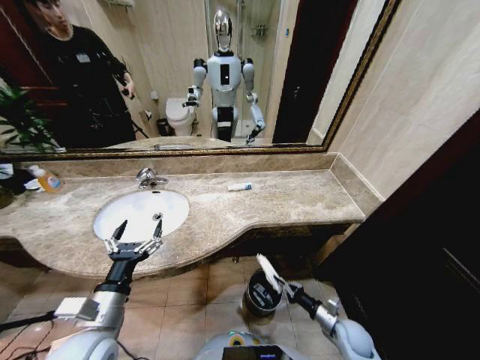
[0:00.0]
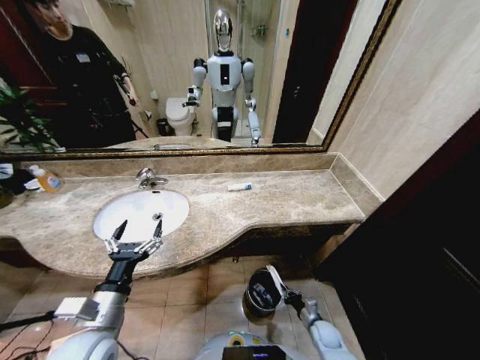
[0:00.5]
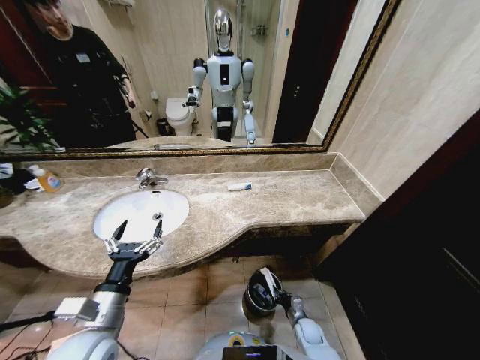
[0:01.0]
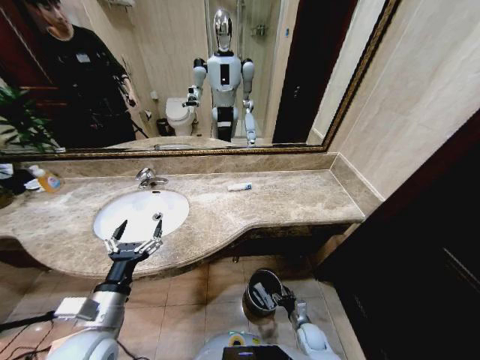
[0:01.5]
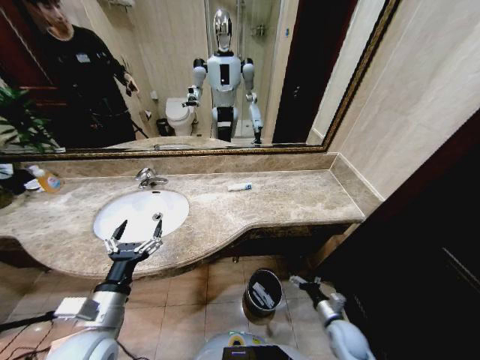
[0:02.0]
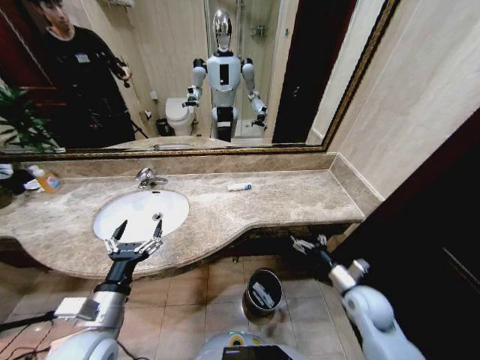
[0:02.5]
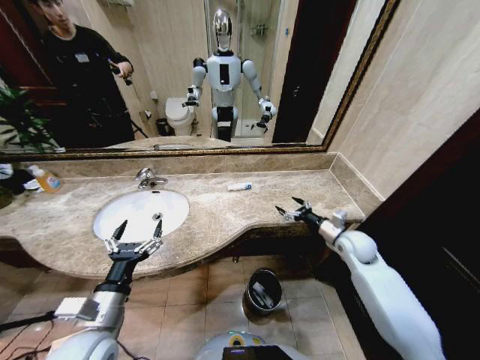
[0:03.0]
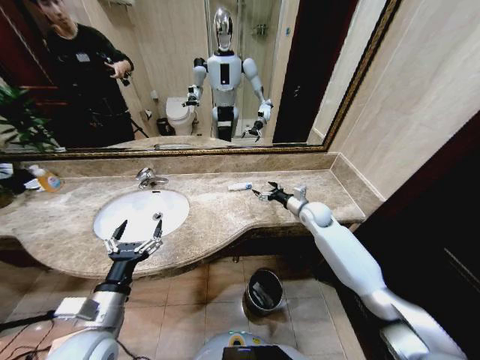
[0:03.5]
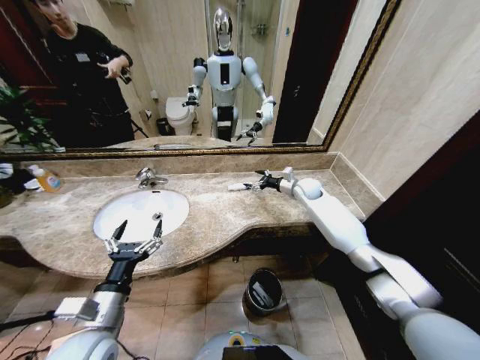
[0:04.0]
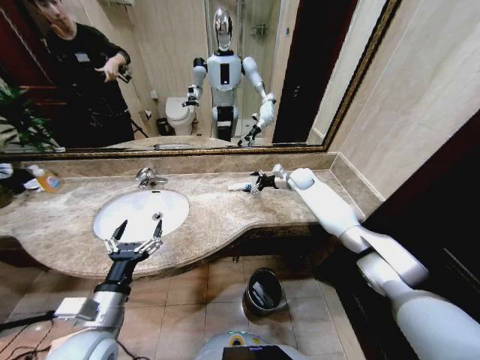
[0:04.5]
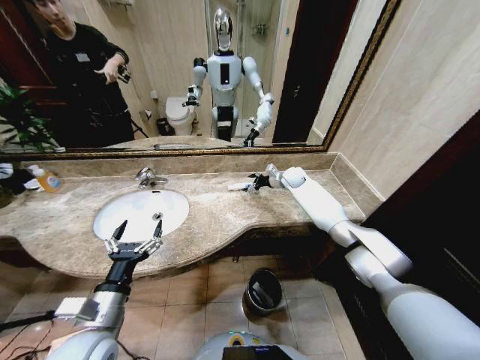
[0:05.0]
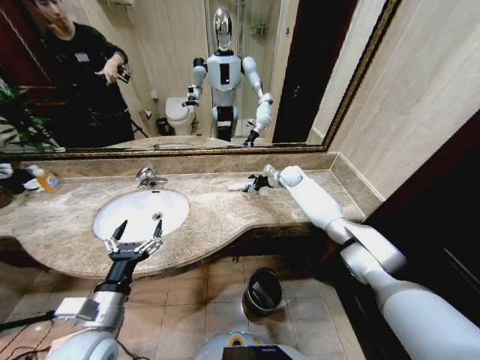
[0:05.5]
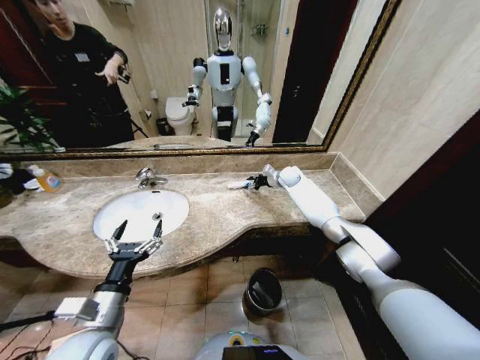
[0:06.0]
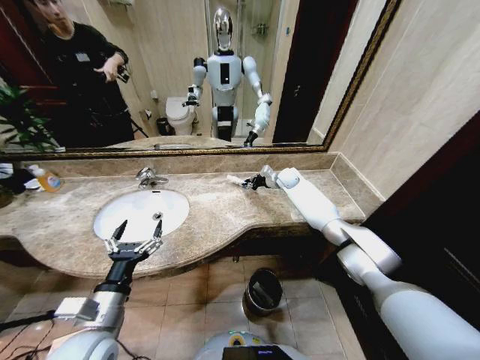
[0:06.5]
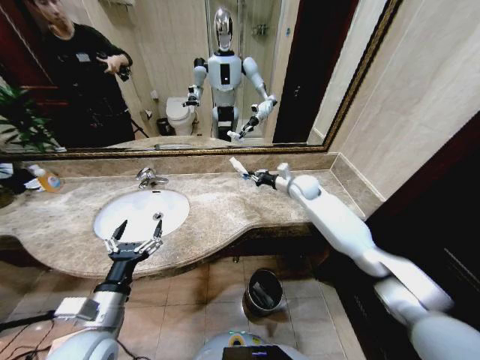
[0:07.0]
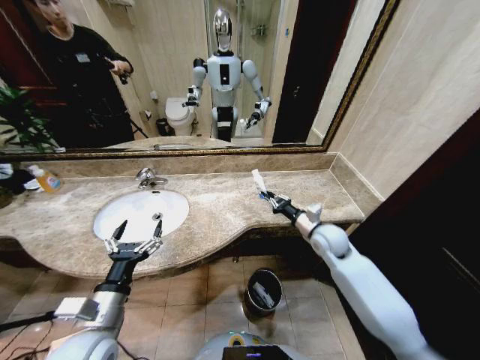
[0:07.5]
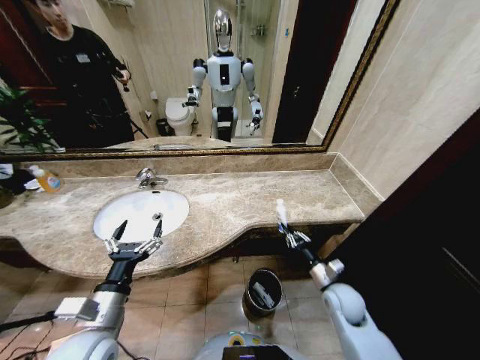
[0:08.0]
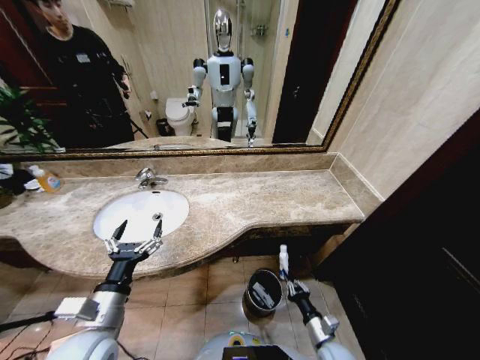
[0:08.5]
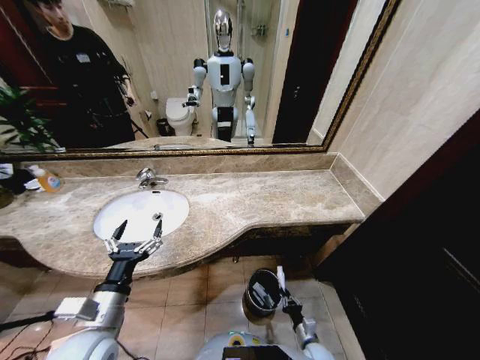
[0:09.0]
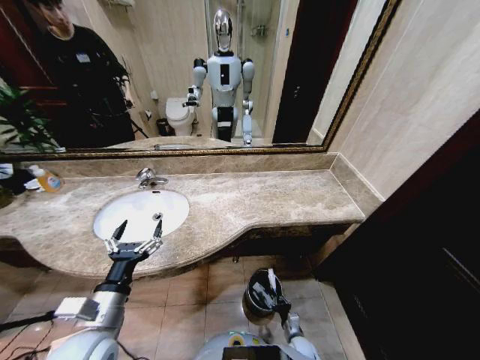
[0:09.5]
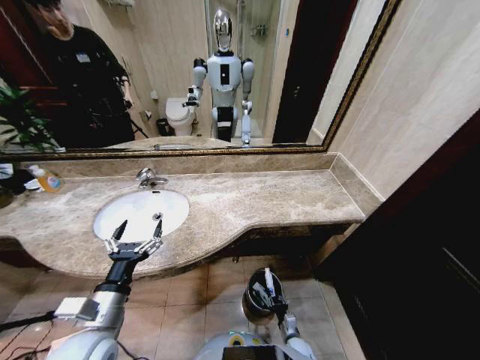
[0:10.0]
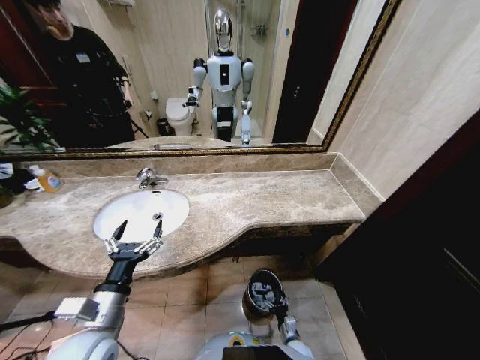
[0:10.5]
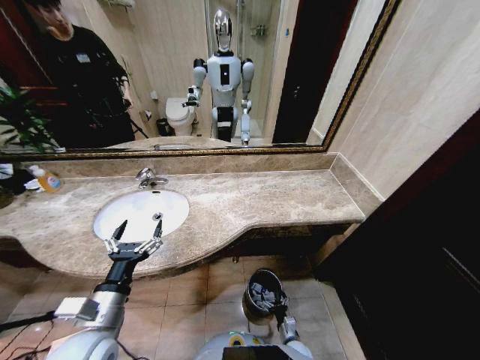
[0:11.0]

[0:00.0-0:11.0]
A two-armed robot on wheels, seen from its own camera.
Task of the whole recording: Pick up the trash from the sink and place it in the trash bin.
0:00.0 to 0:02.0: The right gripper goes downward and returns, some 10 cm each way, and opens up.
0:02.0 to 0:03.5: The right gripper goes about 40 cm forward and upward.
0:03.5 to 0:05.5: The right gripper heads forward, covering approximately 15 cm.
0:05.5 to 0:07.5: The right gripper moves backward, approximately 30 cm, and closes up.
0:07.5 to 0:09.0: The right gripper travels downward and backward by about 40 cm.
0:09.0 to 0:11.0: The right gripper goes about 5 cm to the left, and opens up.

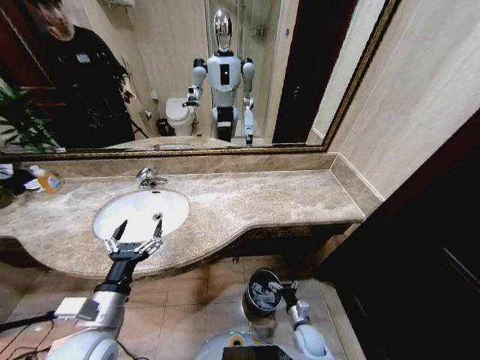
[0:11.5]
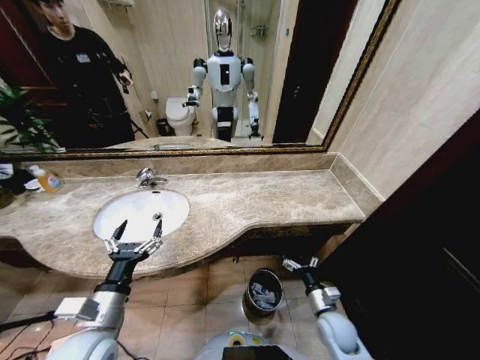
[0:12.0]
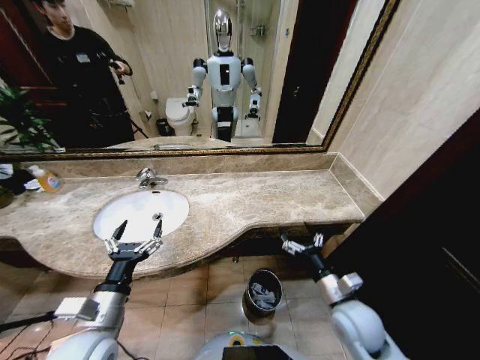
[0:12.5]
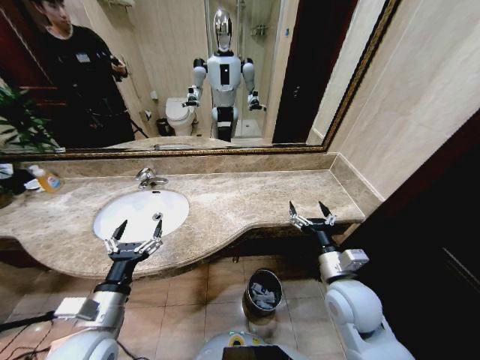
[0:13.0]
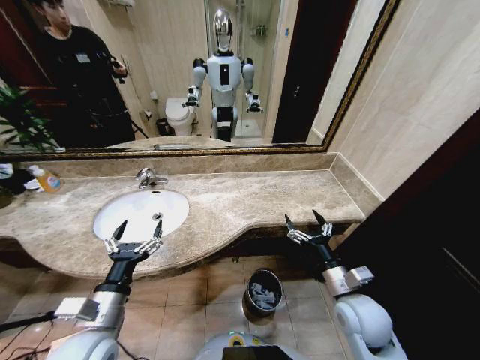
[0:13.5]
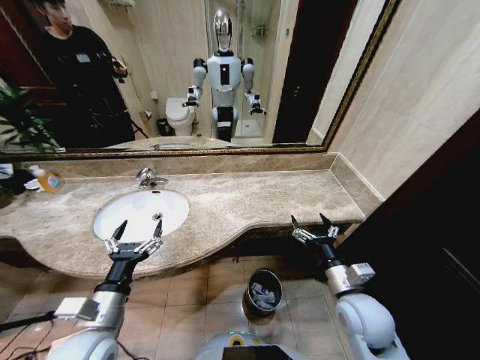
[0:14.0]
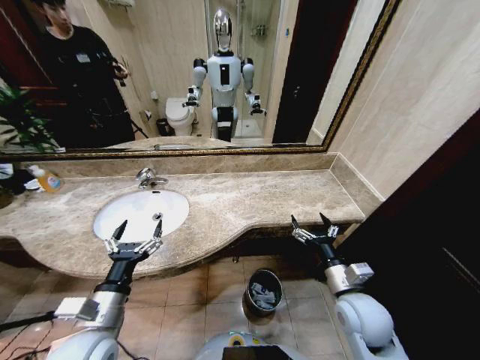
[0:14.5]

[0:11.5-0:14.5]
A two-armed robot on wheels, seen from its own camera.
Task of the whole recording: Pick up the trash from the sink and place it in the trash bin.
0:11.5 to 0:13.0: The right gripper shifts some 35 cm upward.
0:13.0 to 0:14.5: There are only small adjustments of the grippers.
